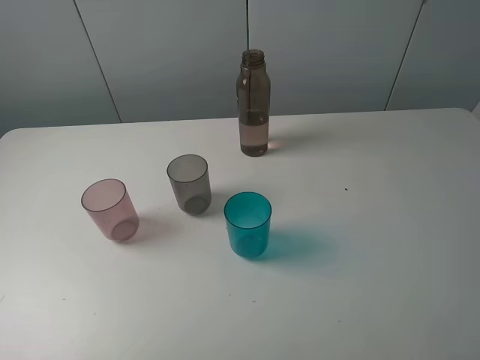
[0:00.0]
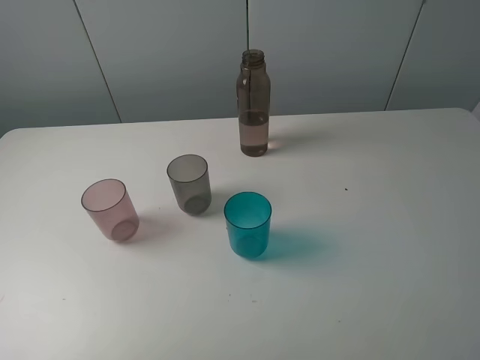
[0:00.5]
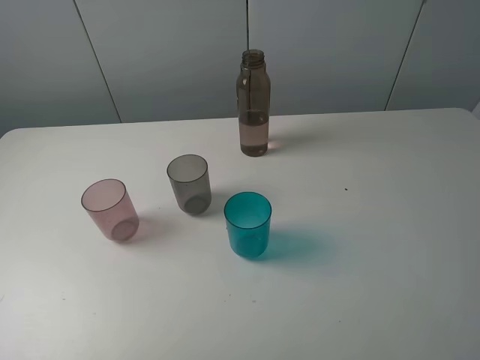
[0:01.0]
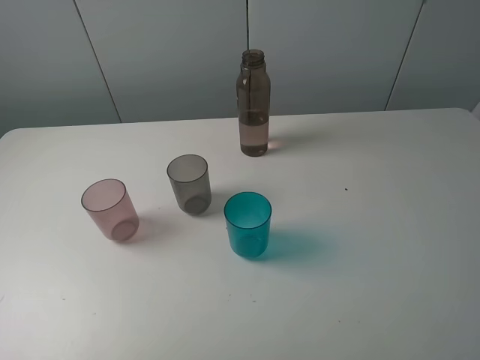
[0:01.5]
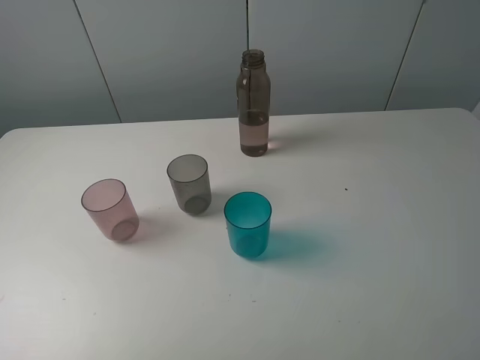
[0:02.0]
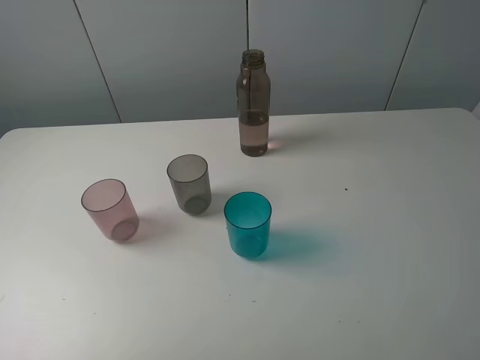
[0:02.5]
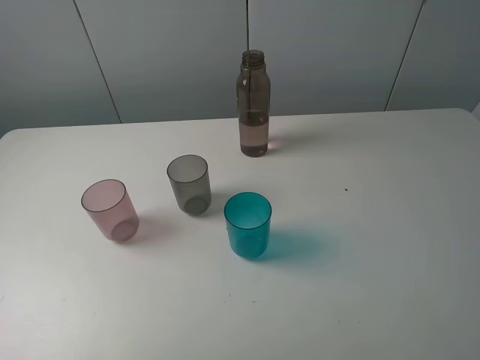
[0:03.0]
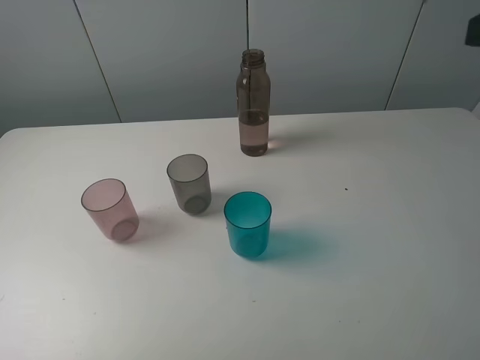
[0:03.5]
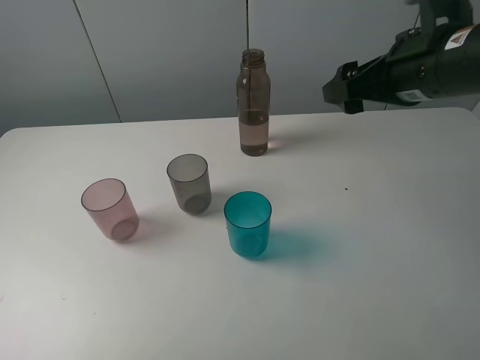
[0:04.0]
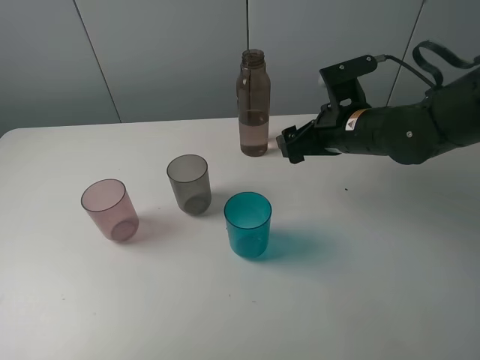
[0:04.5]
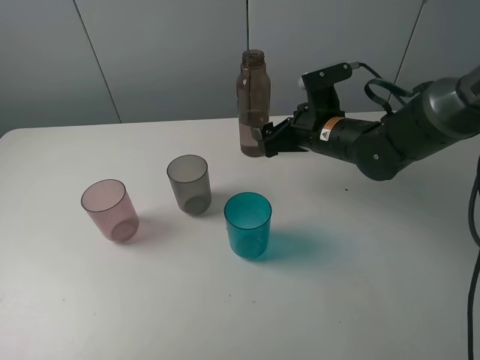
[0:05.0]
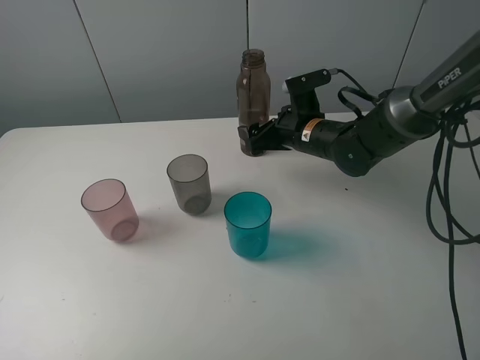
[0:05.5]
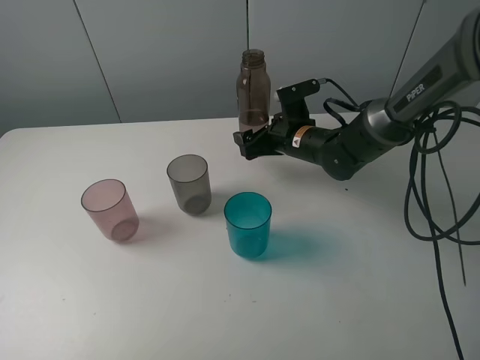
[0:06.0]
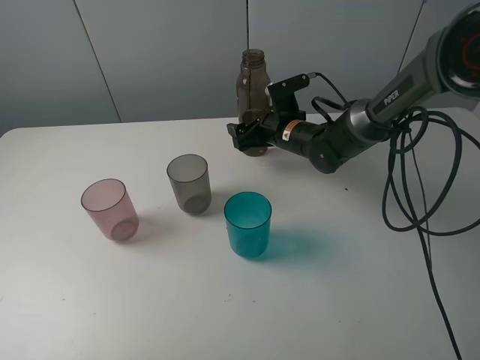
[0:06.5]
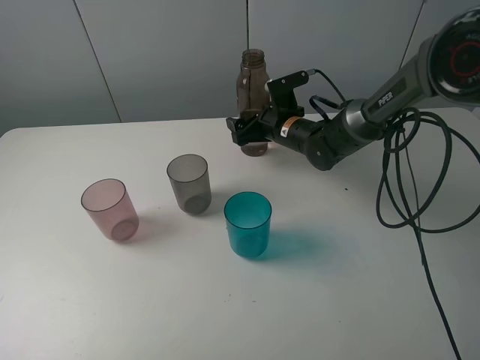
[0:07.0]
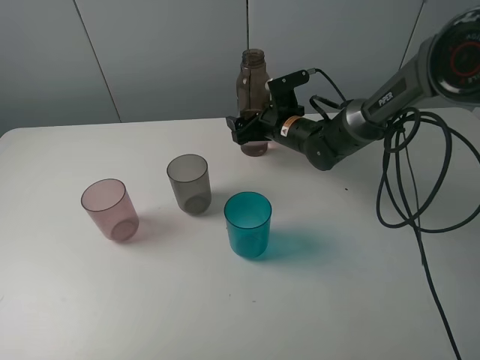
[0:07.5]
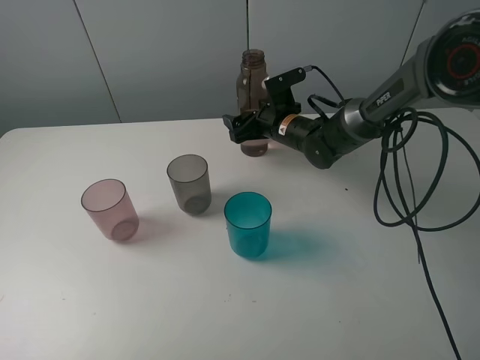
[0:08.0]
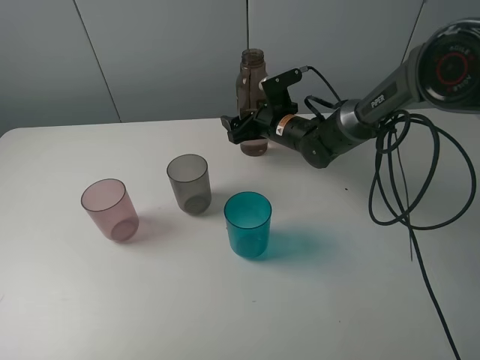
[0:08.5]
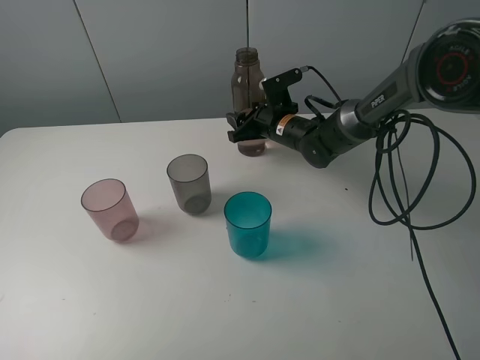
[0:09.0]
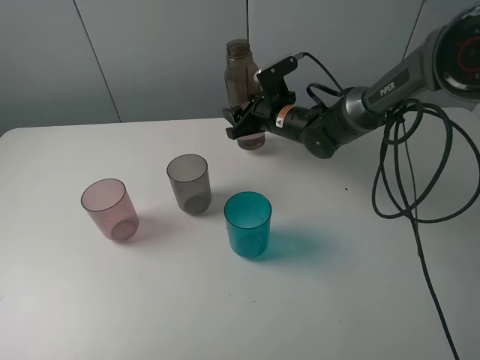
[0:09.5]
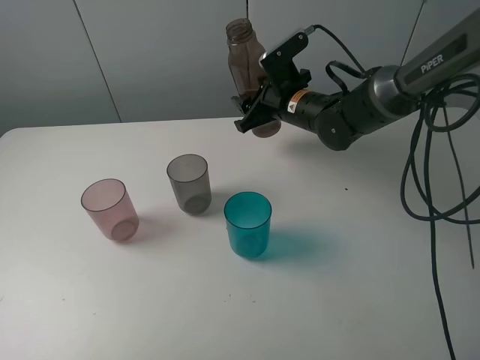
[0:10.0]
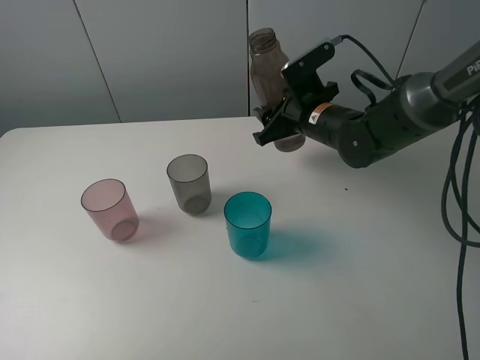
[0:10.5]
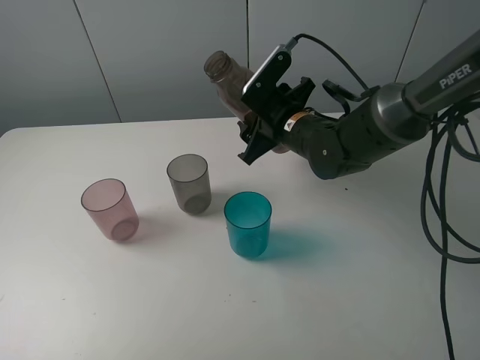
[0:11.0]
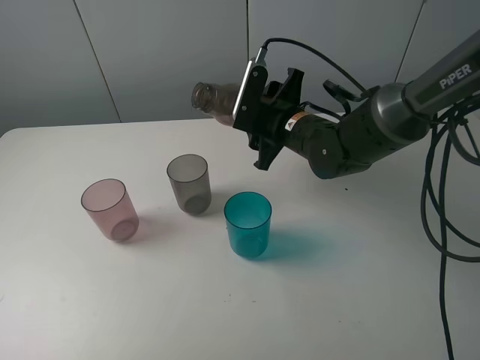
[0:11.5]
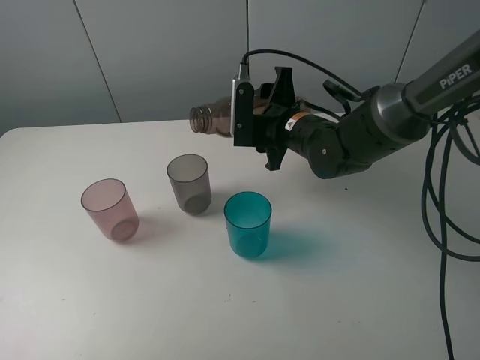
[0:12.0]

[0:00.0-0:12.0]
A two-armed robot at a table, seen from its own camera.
Task of the whole recording: pick up the bottle filled with water and pour water into the middle cup of the three cups.
Step, 0:00.0 to 0:08.5: Grasp the brown bottle with the right gripper.
0:00.0 to 0:02.0: The two grippers keep their place.
0:02.0 to 0:04.0: The right gripper goes approximately 25 cm forward.
0:04.0 to 0:06.0: The right gripper travels downward, forward and to the left by about 25 cm.
0:06.0 to 0:08.0: The grippers move only a little.
0:08.0 to 0:10.0: The right gripper heads upward, covering some 5 cm, and closes.
0:10.0 to 0:12.0: The right gripper heads backward, covering about 5 cm.

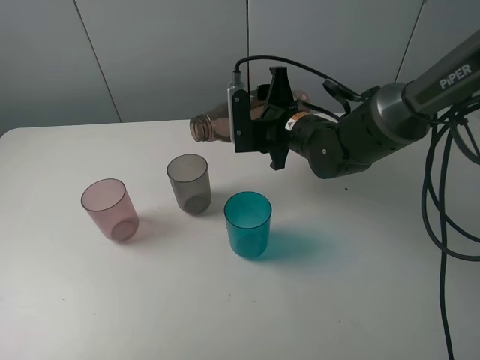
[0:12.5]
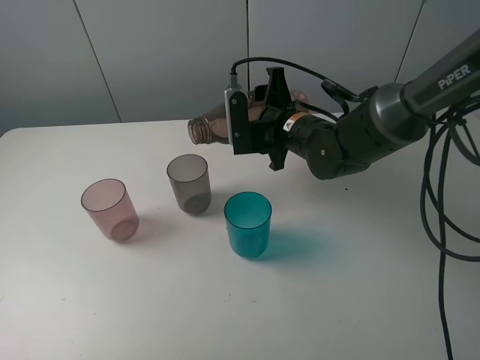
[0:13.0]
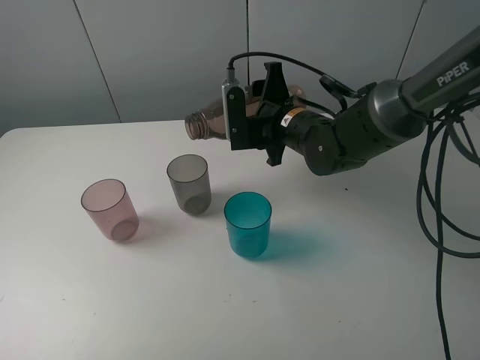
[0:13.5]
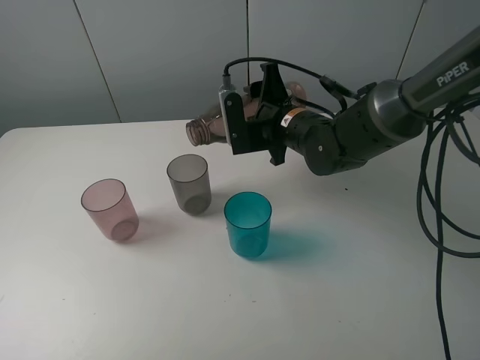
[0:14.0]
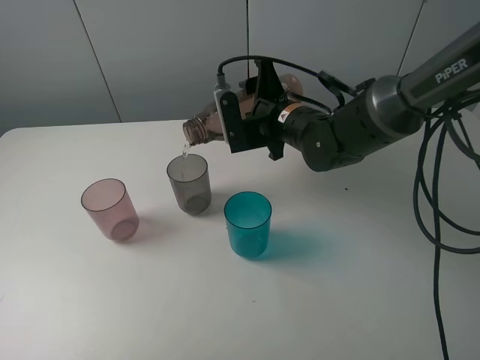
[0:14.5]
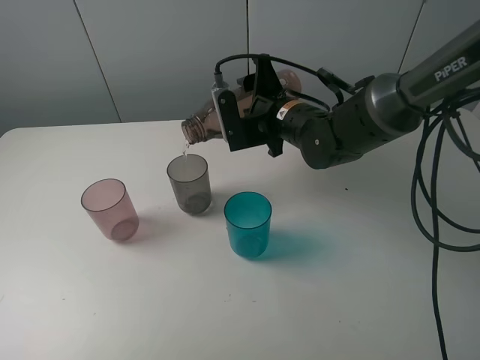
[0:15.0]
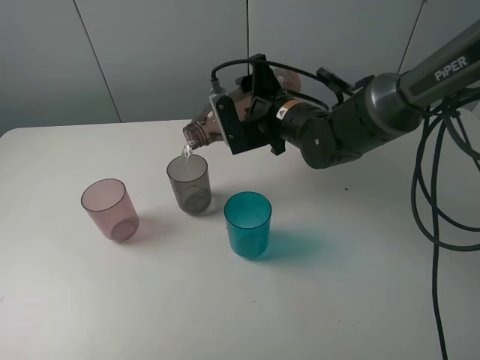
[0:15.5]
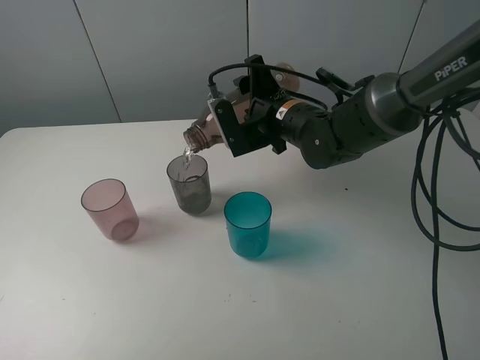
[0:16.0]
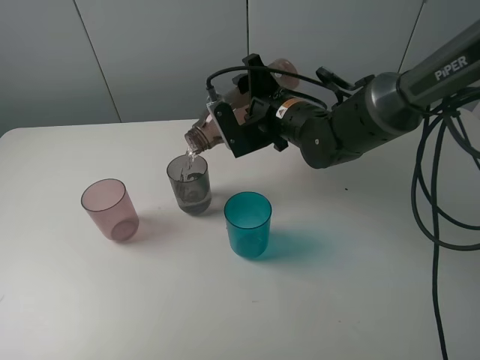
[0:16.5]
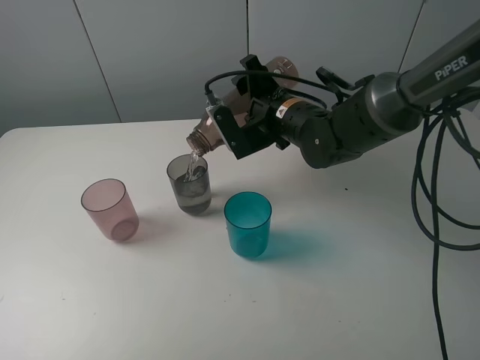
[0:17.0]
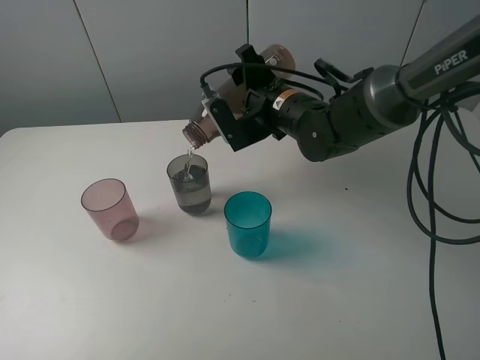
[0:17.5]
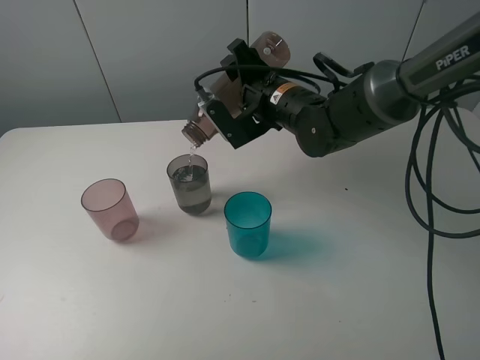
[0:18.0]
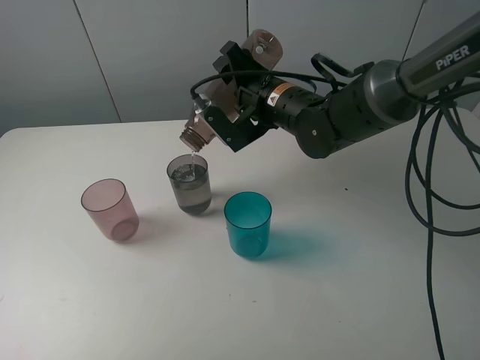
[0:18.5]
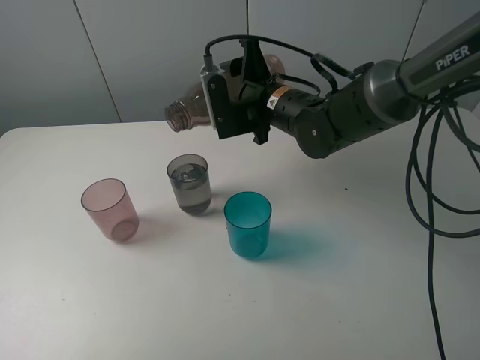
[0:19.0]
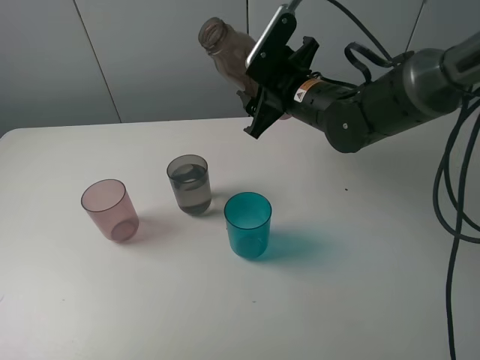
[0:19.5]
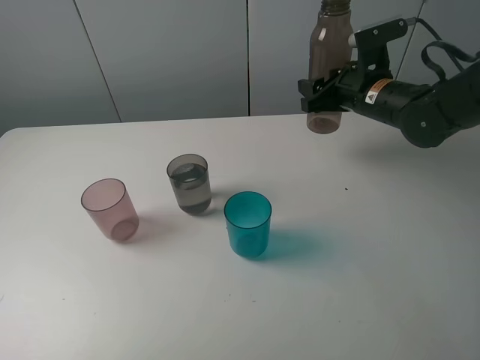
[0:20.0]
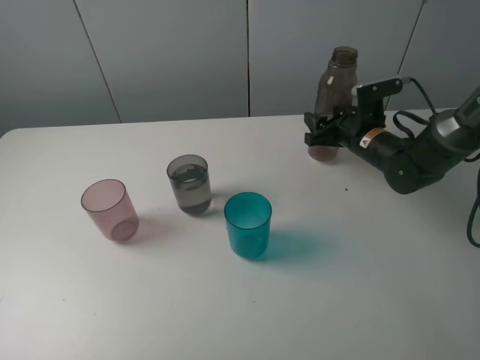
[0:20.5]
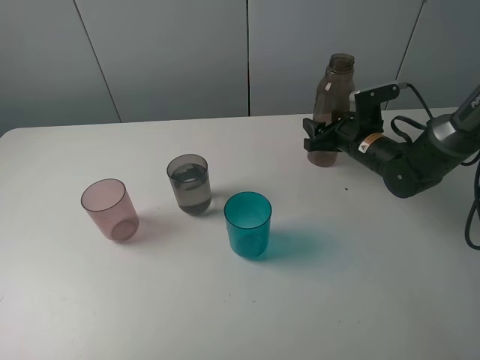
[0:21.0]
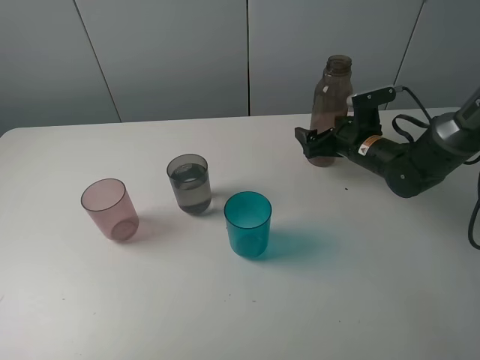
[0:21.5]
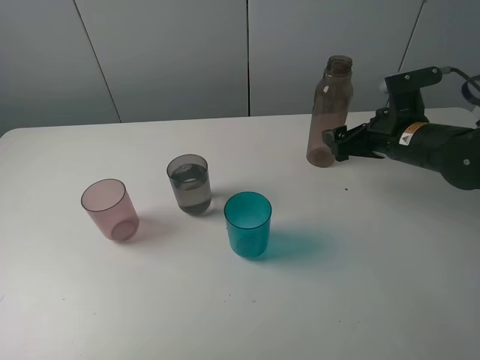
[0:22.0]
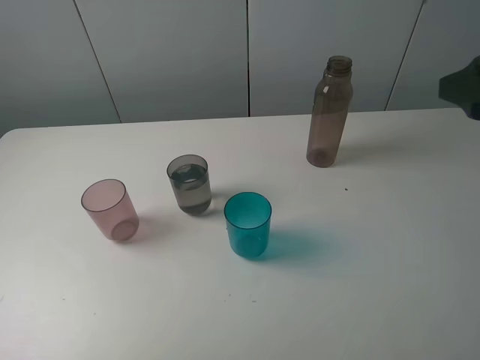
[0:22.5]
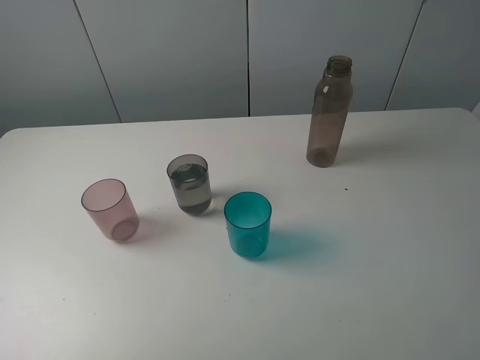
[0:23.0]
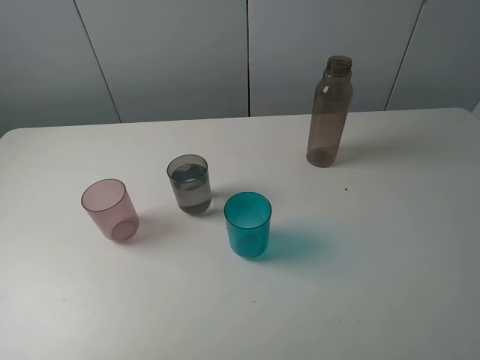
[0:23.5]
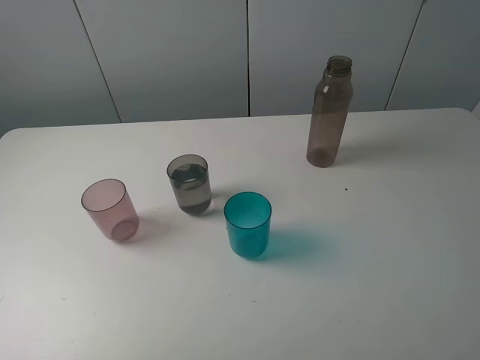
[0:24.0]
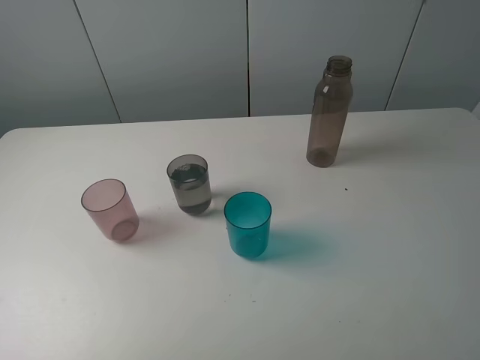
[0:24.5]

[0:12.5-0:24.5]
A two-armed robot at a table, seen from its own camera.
Task of the whole recording: pick up the bottle filled with water and pour water into the middle cup of the three cups.
Step, 0:14.5 to 0:22.0: Place the brown bottle with the right gripper.
0:12.5 to 0:14.5: There are only small adjustments of the grippers.
0:14.5 to 0:16.5: The grippers move only a little.
0:16.5 to 0:18.5: The grippers stay close to where they were, moving slightly.
0:18.5 to 0:20.5: The right gripper travels to the right and downward by about 20 cm.
0:20.5 to 0:22.5: The right gripper is displaced upward and backward by roughly 30 cm, and opens up.
0:22.5 to 0:24.5: The right gripper shifts approximately 15 cm backward.

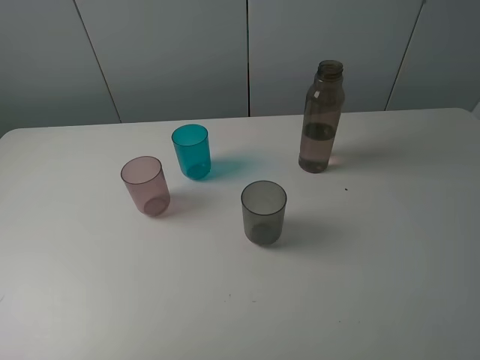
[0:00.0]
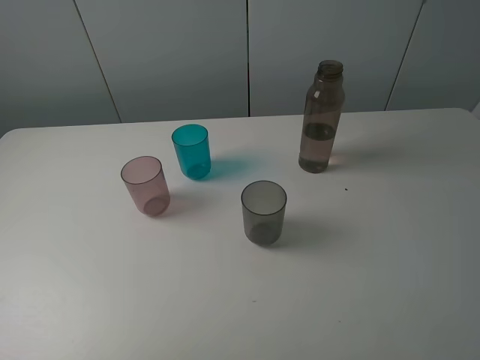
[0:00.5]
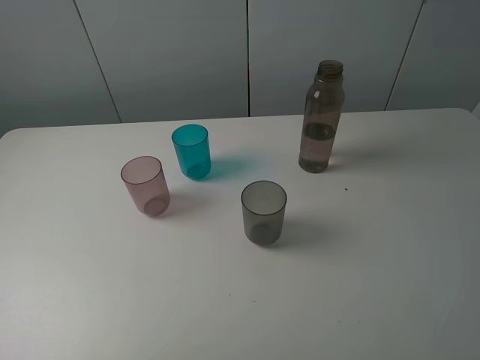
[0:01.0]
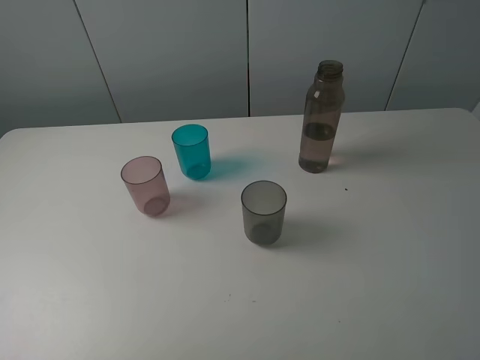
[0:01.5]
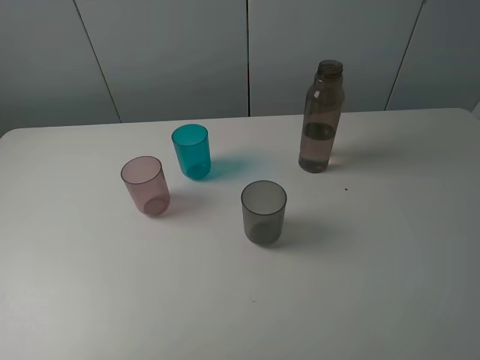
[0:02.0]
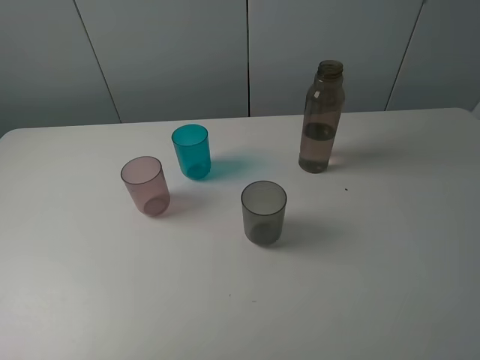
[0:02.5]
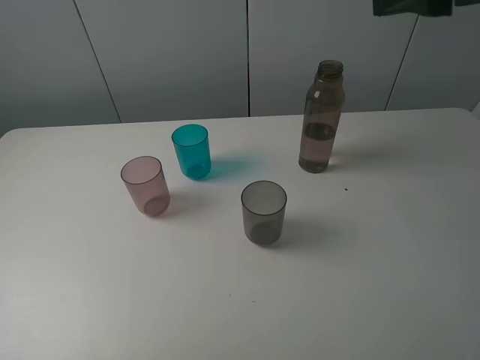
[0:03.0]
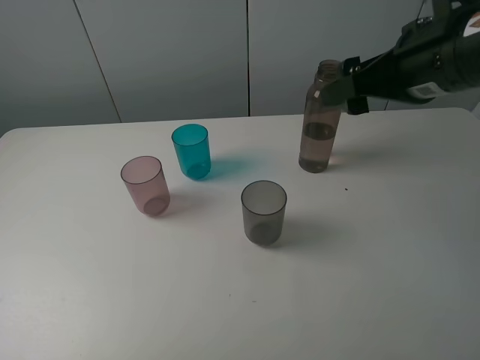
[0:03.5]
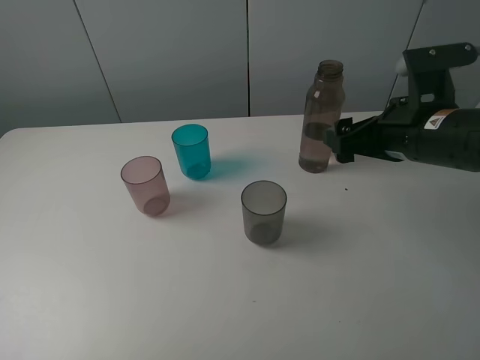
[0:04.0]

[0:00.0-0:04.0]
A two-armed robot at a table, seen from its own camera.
Task of the whole recording: pick up the bottle filled with water and pour water into the middle cup of the three cups.
0:02.0 to 0:04.0: The right gripper moves forward and downward, some 25 cm.
